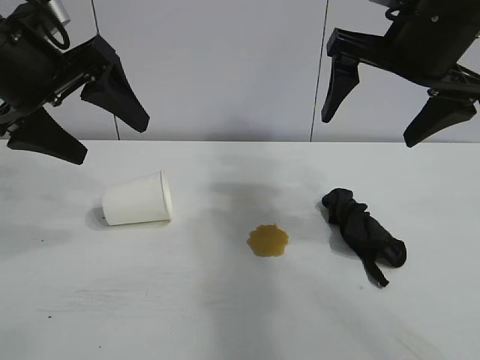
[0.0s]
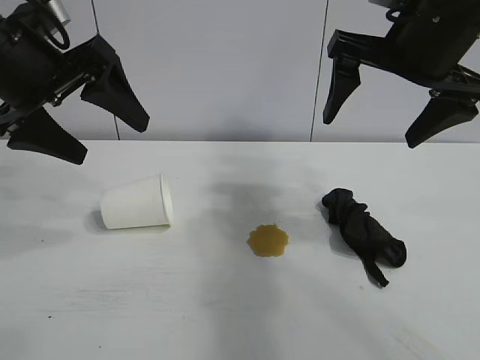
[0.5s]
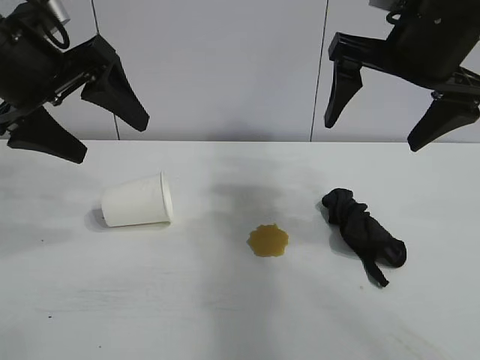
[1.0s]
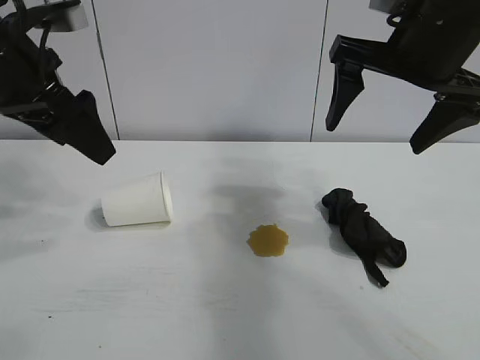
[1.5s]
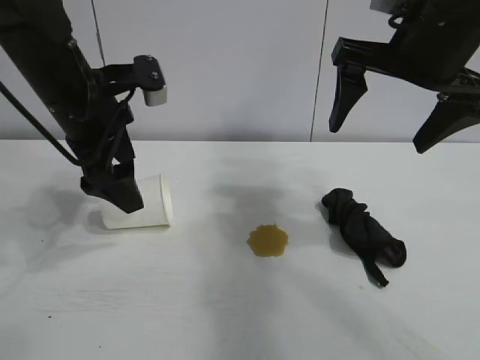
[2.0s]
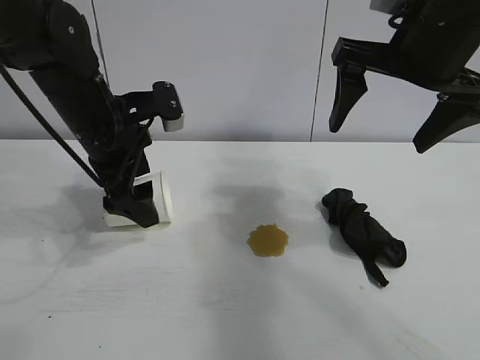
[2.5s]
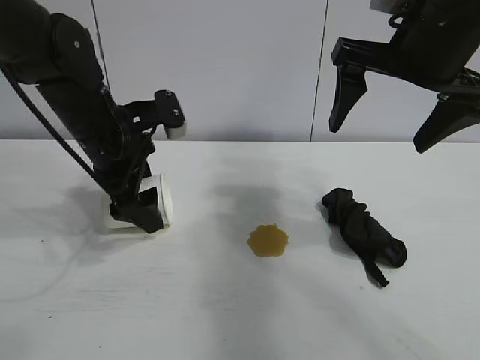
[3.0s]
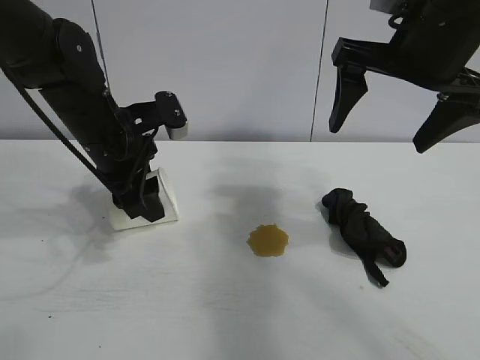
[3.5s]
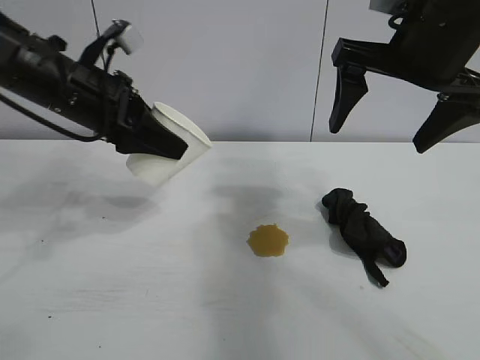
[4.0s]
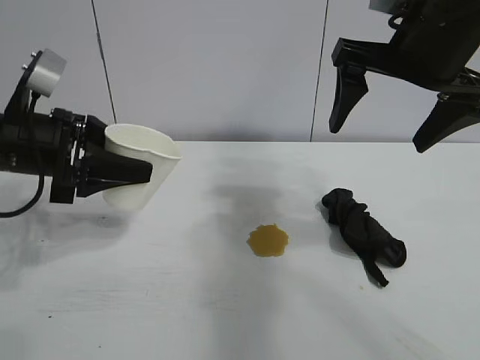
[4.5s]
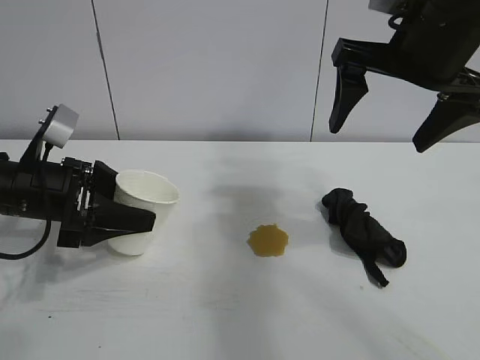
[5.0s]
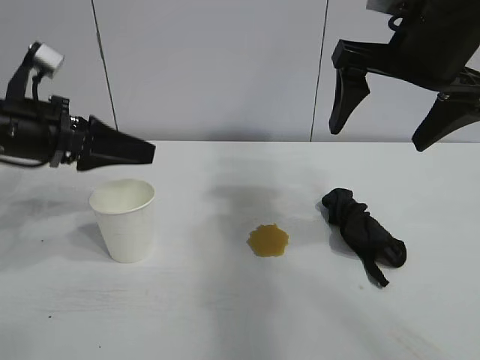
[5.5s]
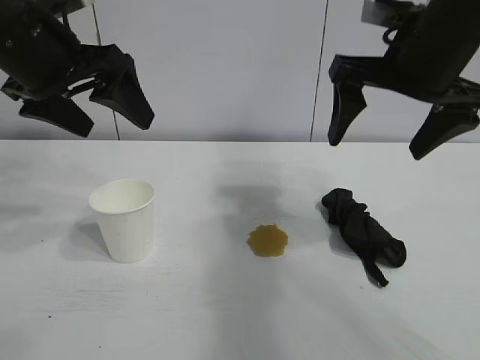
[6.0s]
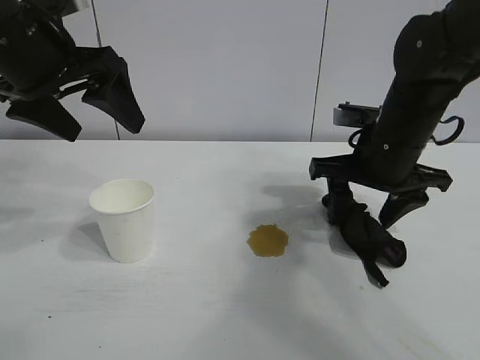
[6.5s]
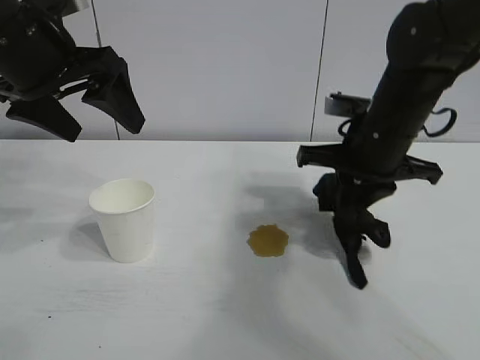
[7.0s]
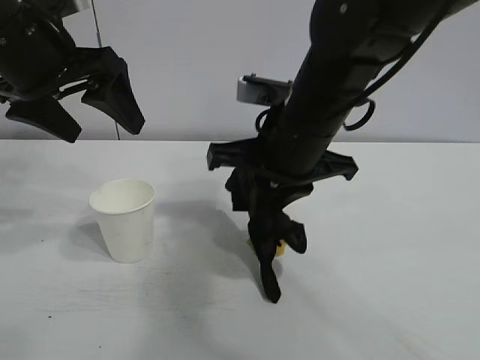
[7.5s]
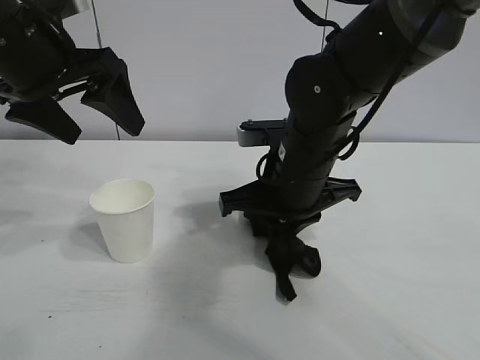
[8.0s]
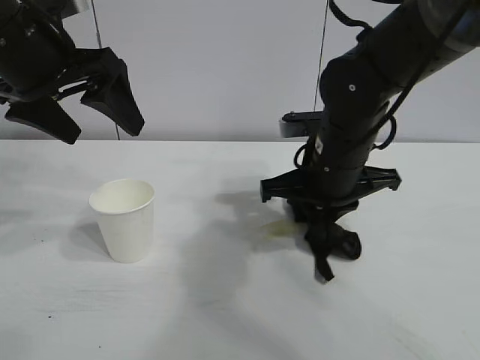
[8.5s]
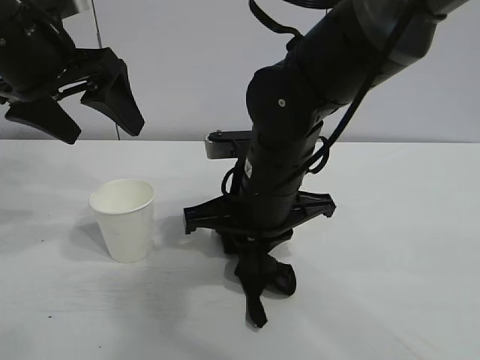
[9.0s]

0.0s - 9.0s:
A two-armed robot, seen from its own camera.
Task of the whole recording: the left gripper pick up the fallen cup and place it upright, the right gripper grasp the black rag and wipe the stain on the table, the right gripper put the black rag back in its original position.
Step, 1.5s - 3.0s: Grasp the paper cup with left gripper.
Step, 3.5s - 5.0s: Stand the paper cup upright with left gripper.
Step, 5.5s - 6.5s: Grasp the rag with right gripper.

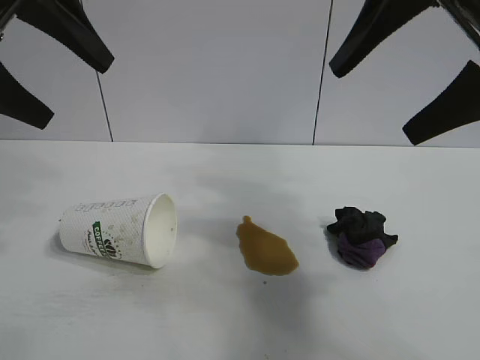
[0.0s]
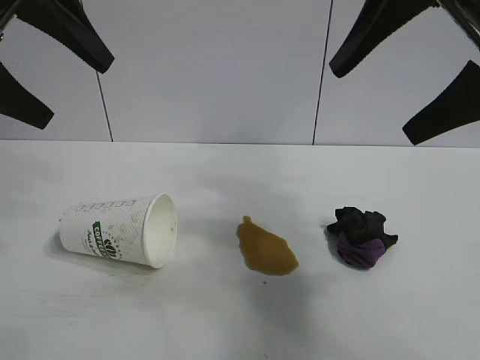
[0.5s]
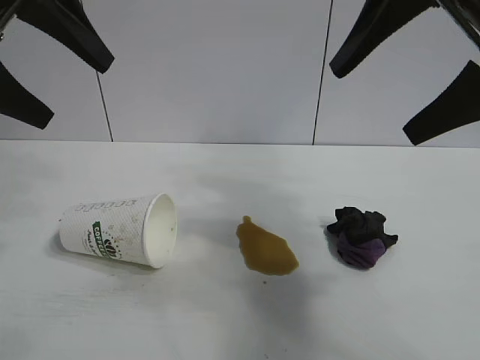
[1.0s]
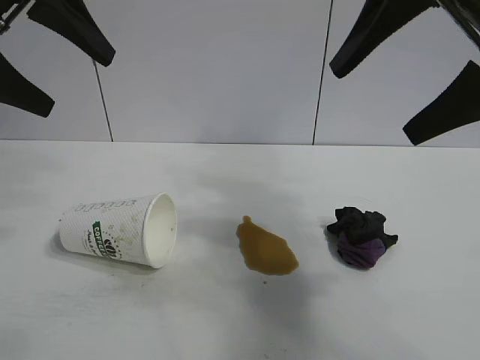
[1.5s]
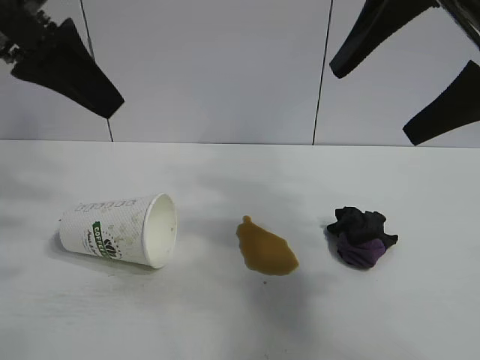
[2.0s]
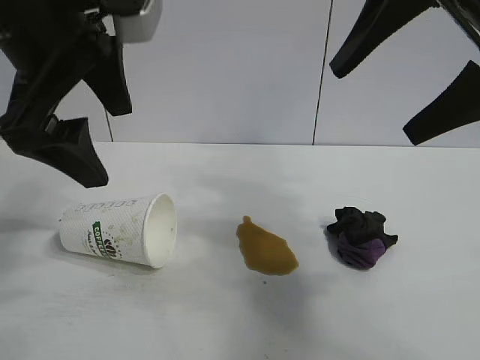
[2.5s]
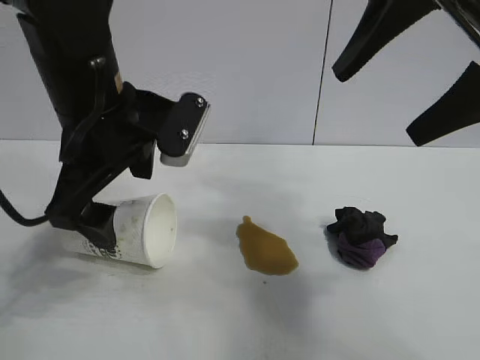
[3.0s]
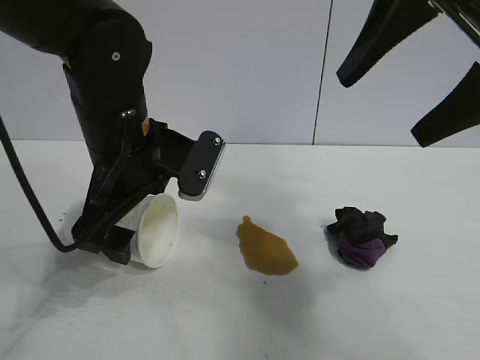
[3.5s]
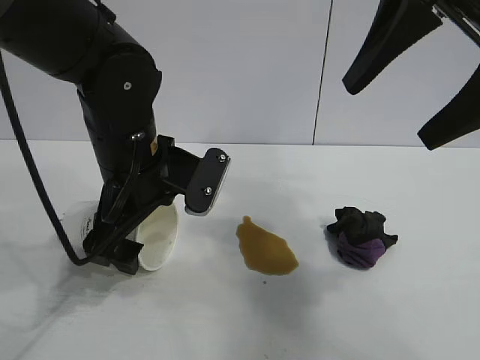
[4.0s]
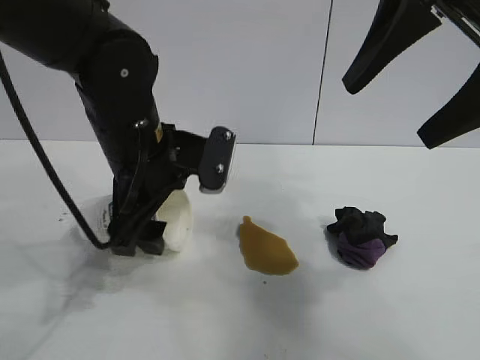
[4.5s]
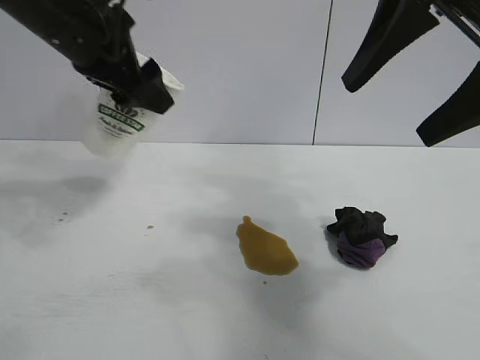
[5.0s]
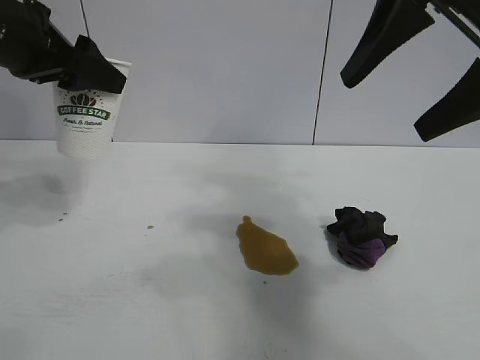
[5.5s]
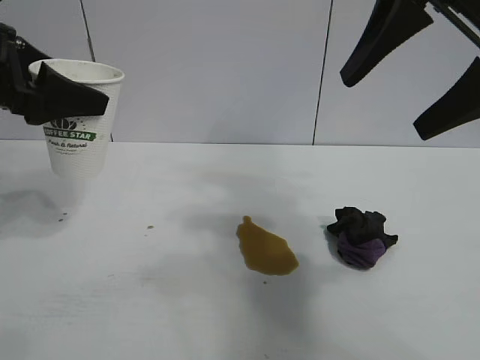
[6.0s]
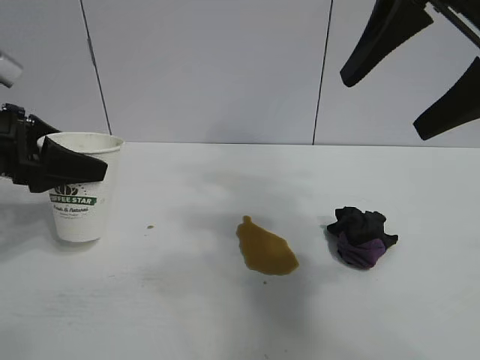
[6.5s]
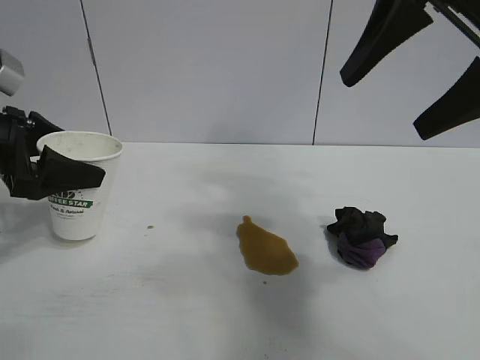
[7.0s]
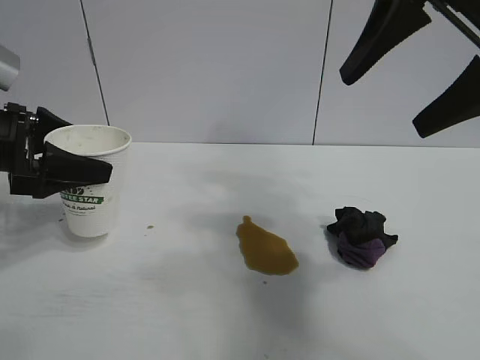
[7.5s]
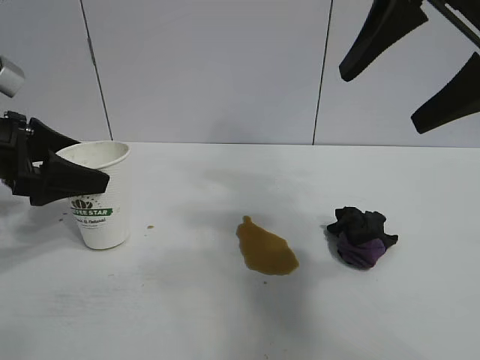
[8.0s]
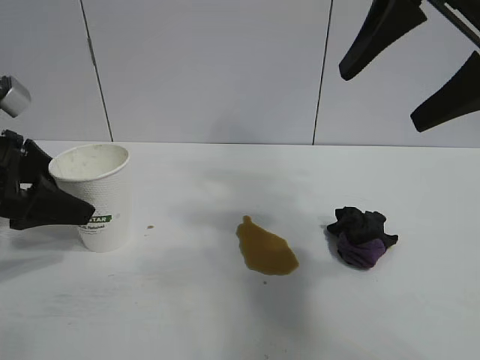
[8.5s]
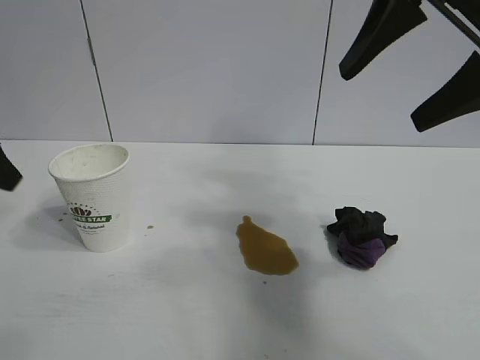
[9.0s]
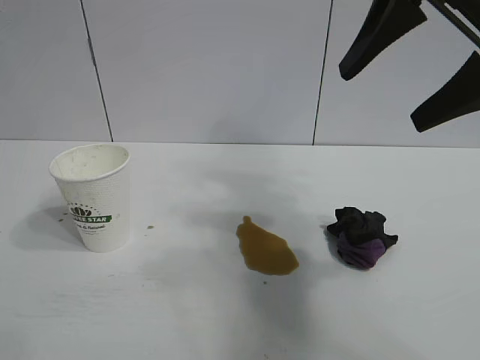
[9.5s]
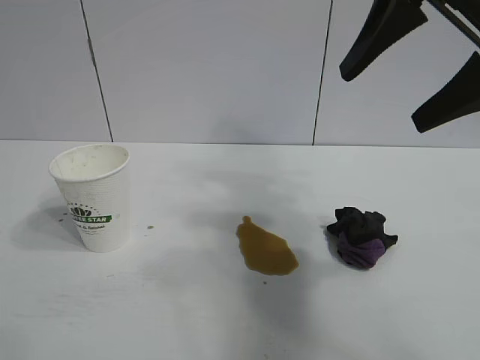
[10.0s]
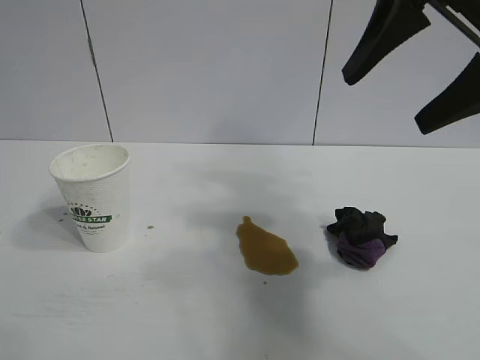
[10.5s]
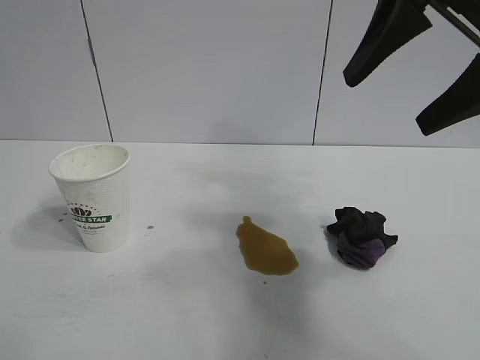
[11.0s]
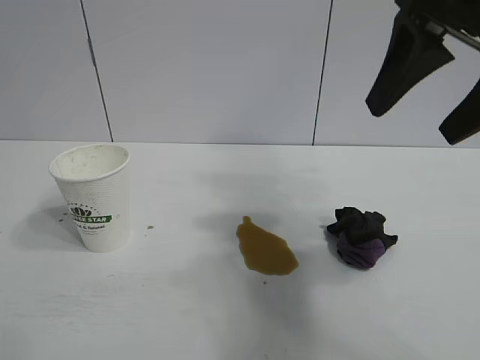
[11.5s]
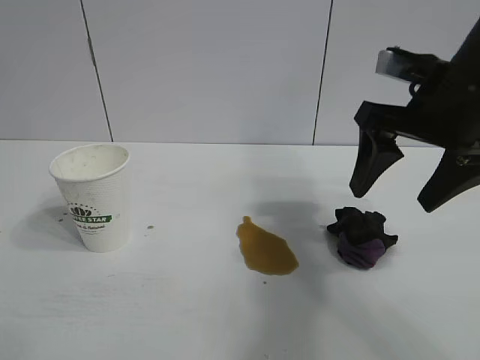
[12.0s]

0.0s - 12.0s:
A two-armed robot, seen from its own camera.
Task of the whole recording: the left gripper pick up the fallen cup and place it upright, the right gripper grasp the black rag and wipe the stain on the table, the right gripper put the black rag back in its original position.
Step, 1.5s - 4.0s: Grasp the paper cup with left gripper.
Step, 4.5s - 8.0s: Stand the paper cup upright with left gripper.

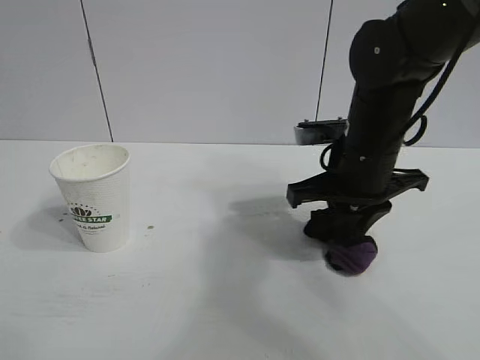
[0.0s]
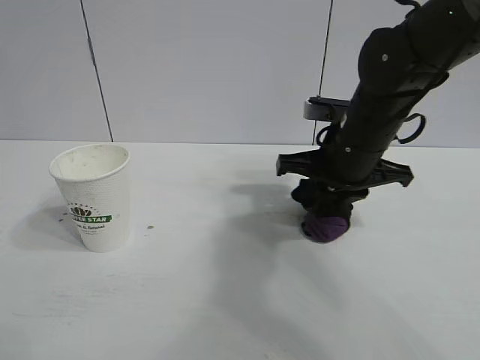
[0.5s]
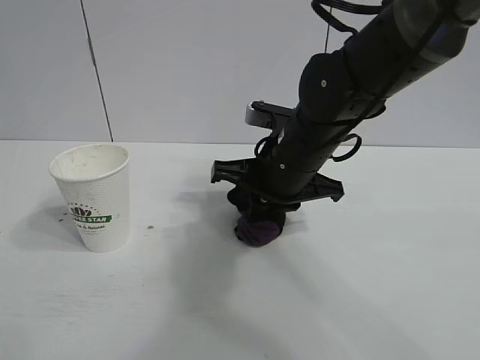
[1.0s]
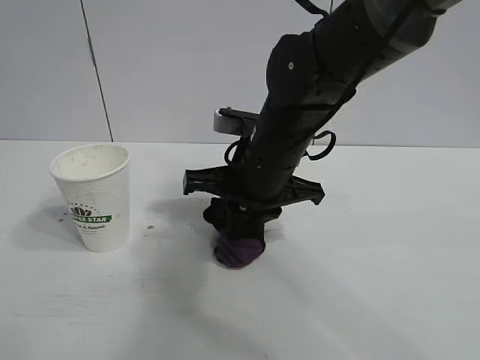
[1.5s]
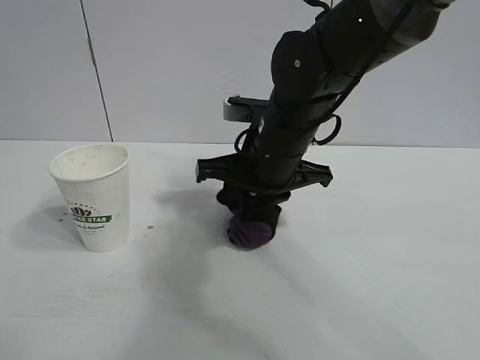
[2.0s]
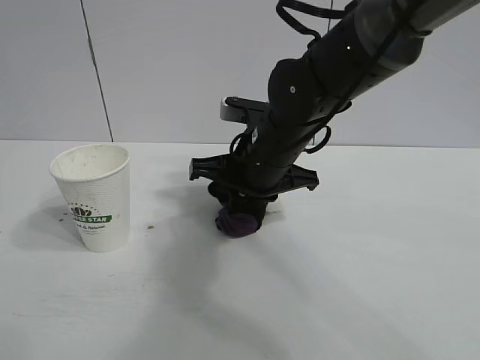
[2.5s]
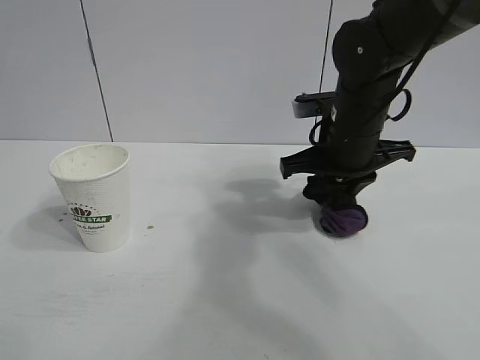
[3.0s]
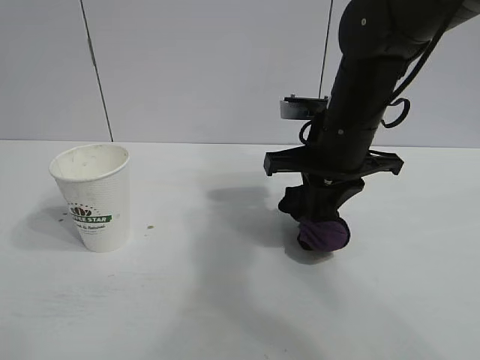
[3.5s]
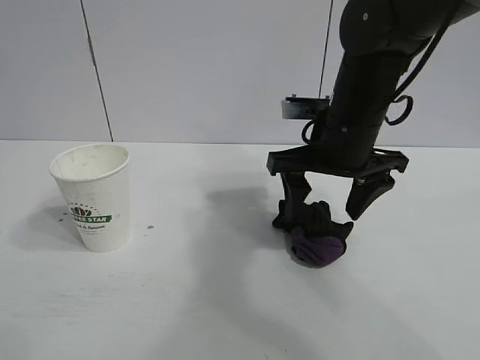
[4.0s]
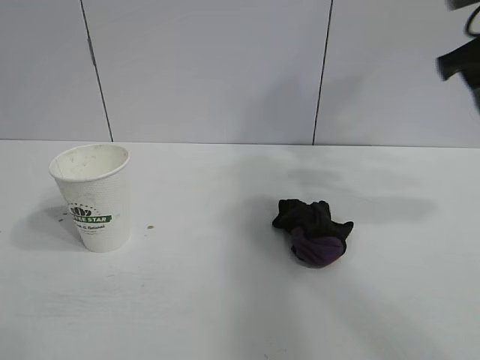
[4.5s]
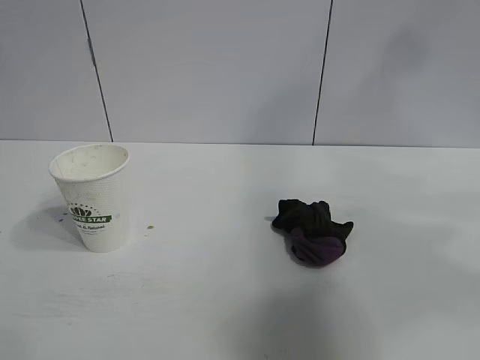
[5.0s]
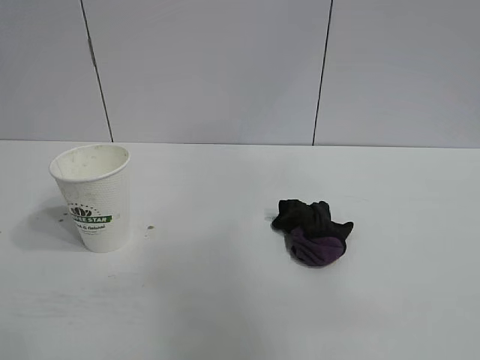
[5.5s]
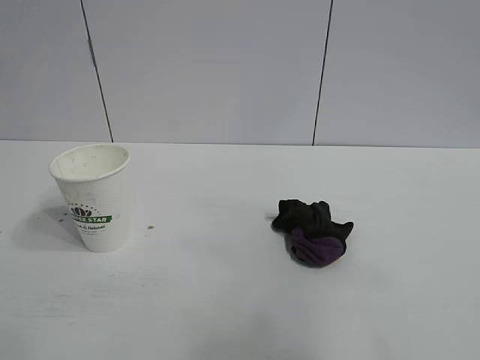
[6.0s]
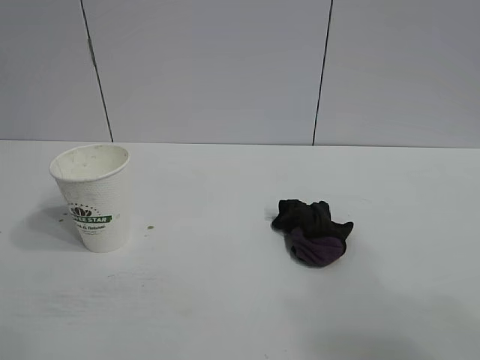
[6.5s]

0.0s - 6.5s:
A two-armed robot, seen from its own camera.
Task of the whole recording: the left gripper pick up the fallen cup and place it upright, the right gripper grasp the black rag and wipe the stain on the table, the right gripper put the black rag back in its original position.
Step, 0.0s - 2.5s: Wipe the stains off the table with the rag with right gripper.
Step, 3.0s - 3.5s: Place the rag on the table with right gripper.
